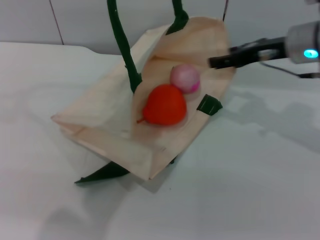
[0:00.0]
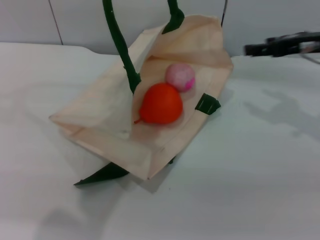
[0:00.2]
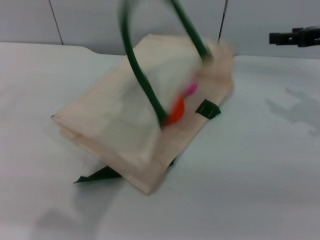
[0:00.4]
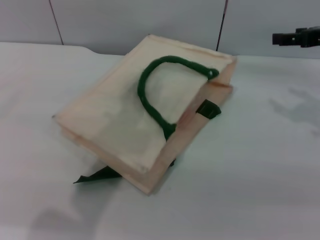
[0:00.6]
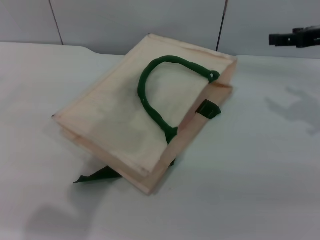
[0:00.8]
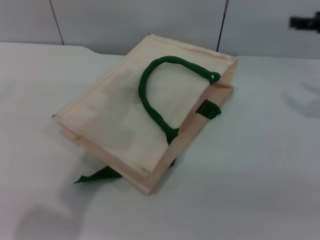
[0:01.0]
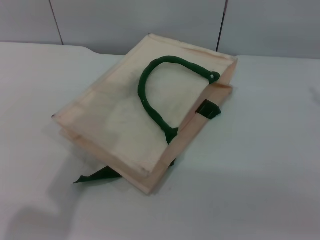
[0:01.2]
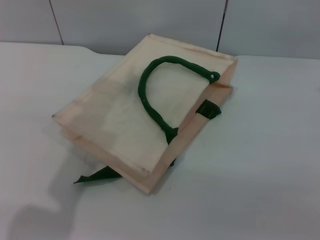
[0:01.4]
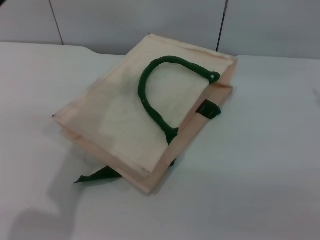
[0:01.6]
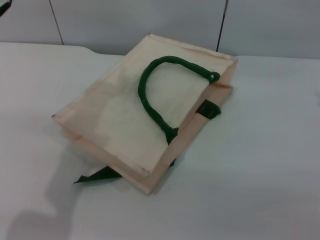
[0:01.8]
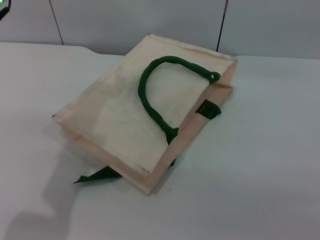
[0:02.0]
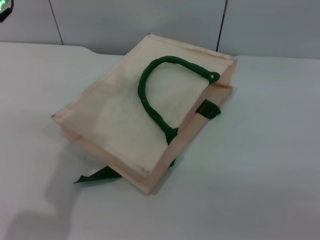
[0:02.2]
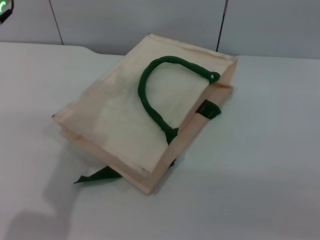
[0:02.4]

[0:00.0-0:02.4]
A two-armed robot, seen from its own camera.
Task of the whole recording: pick up the orange and peach from the table and place it in the white handbag.
0:00.0 to 0:01.2: The right gripper travels to the right by roughly 15 cm, while the left gripper goes roughly 5 cm to the left, and opens its fingers.

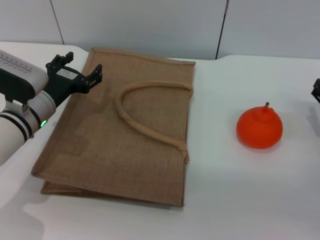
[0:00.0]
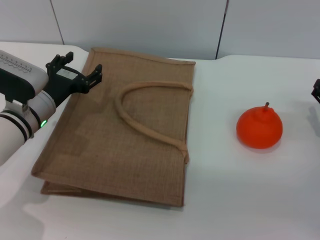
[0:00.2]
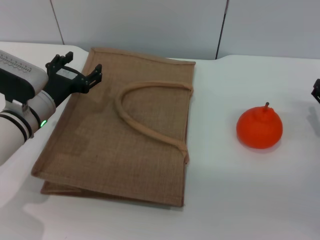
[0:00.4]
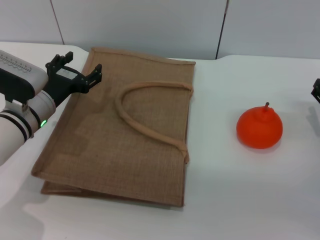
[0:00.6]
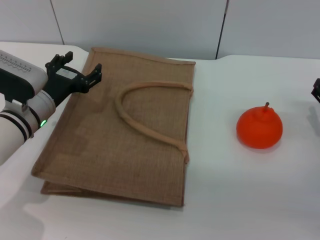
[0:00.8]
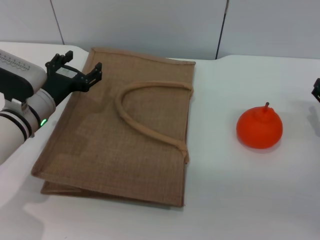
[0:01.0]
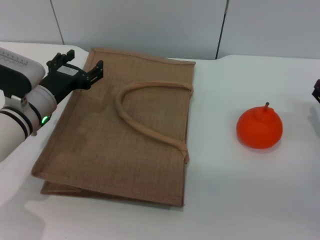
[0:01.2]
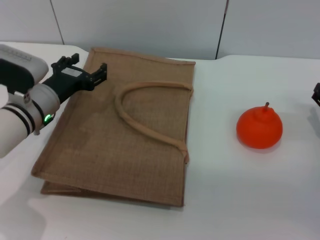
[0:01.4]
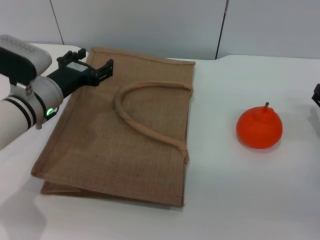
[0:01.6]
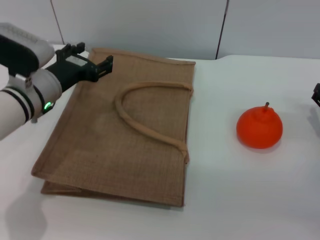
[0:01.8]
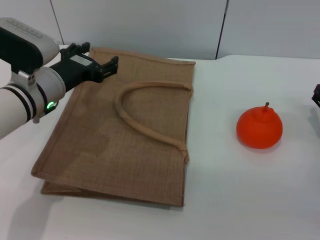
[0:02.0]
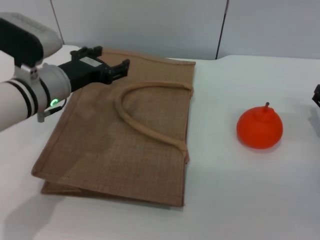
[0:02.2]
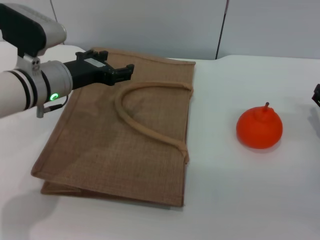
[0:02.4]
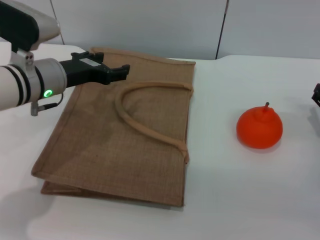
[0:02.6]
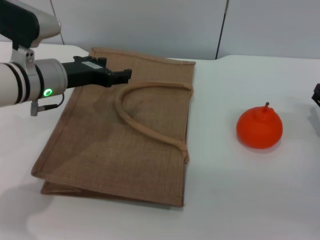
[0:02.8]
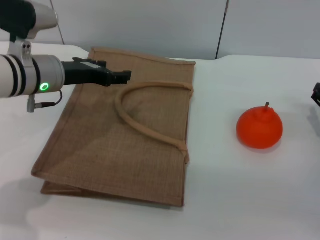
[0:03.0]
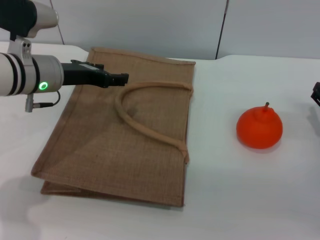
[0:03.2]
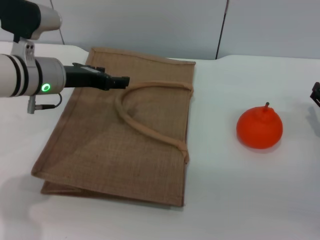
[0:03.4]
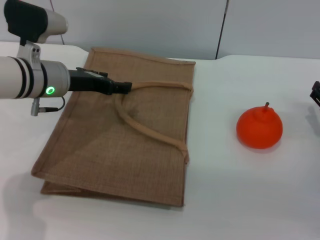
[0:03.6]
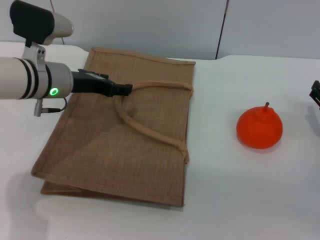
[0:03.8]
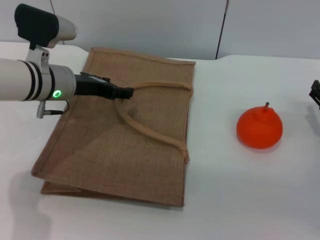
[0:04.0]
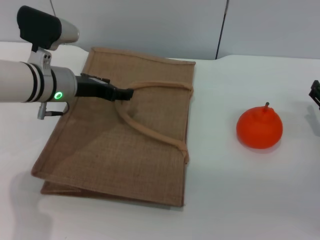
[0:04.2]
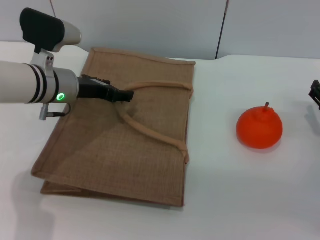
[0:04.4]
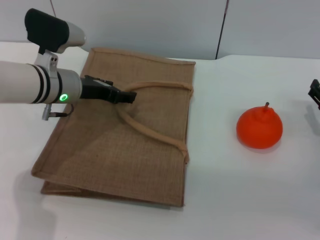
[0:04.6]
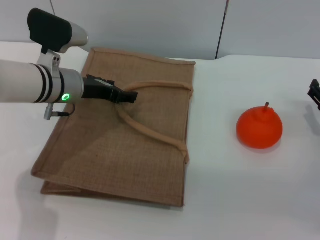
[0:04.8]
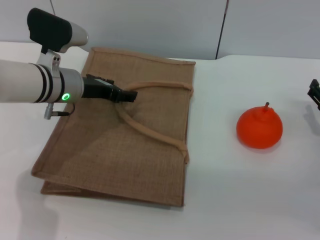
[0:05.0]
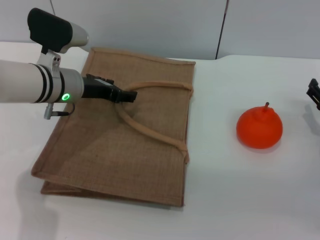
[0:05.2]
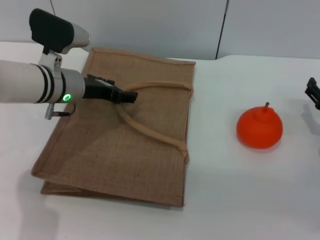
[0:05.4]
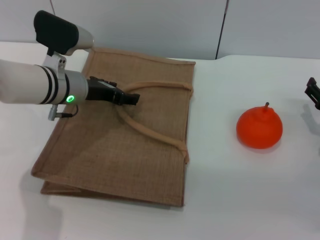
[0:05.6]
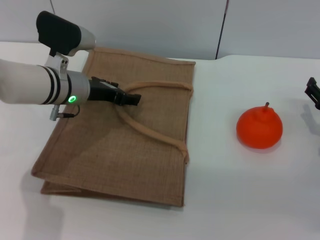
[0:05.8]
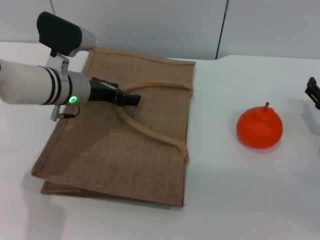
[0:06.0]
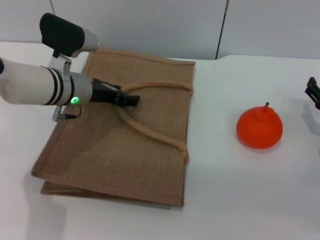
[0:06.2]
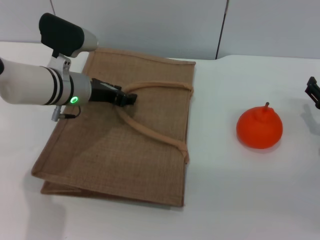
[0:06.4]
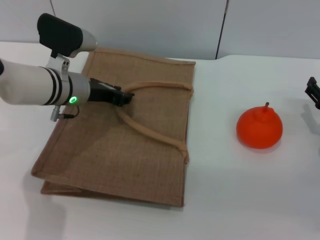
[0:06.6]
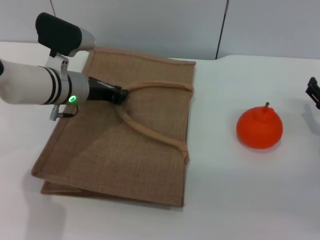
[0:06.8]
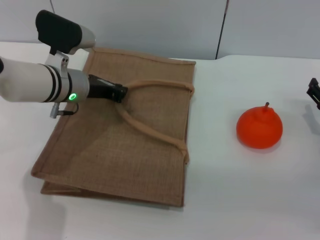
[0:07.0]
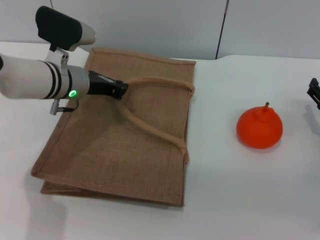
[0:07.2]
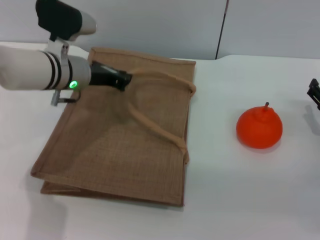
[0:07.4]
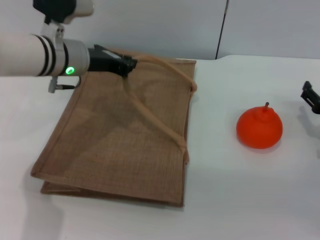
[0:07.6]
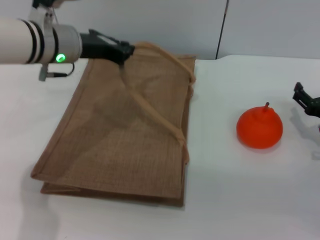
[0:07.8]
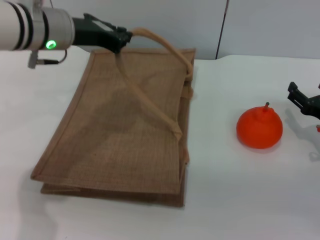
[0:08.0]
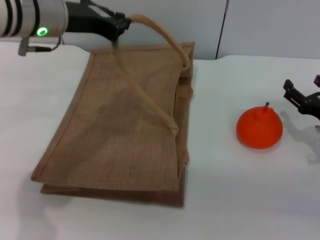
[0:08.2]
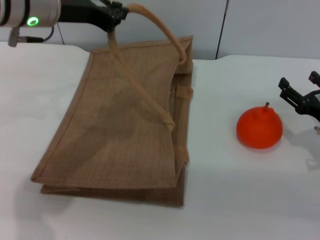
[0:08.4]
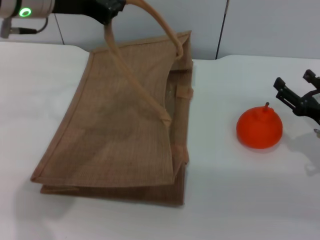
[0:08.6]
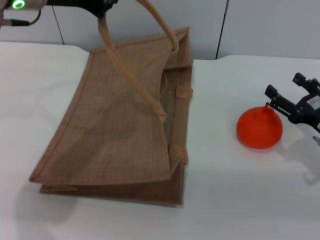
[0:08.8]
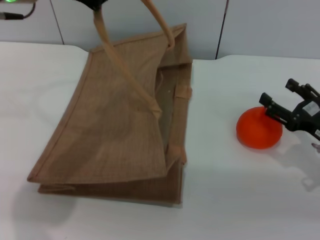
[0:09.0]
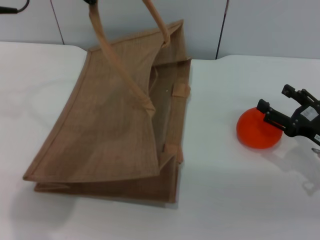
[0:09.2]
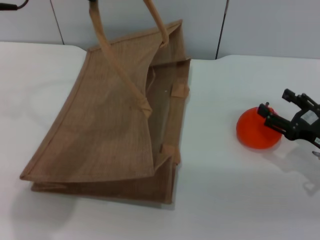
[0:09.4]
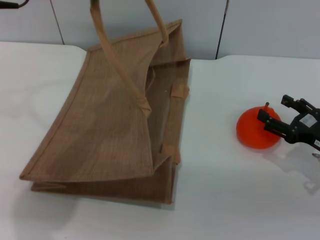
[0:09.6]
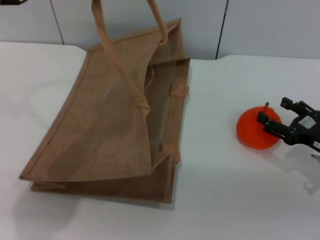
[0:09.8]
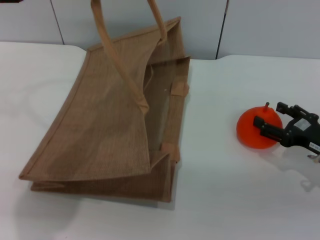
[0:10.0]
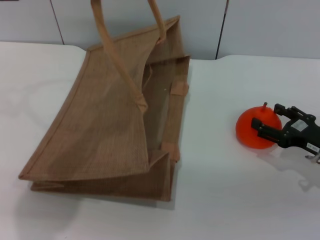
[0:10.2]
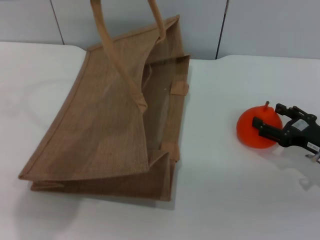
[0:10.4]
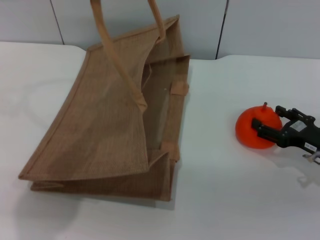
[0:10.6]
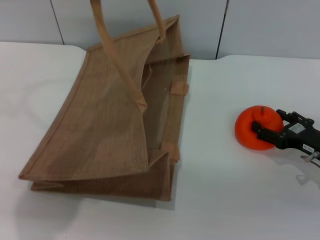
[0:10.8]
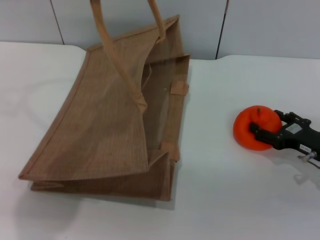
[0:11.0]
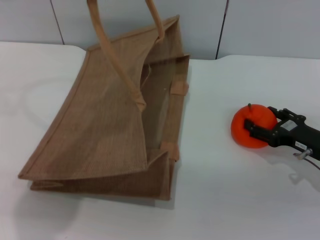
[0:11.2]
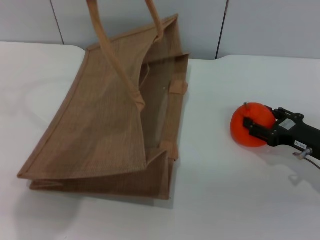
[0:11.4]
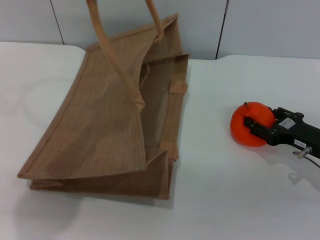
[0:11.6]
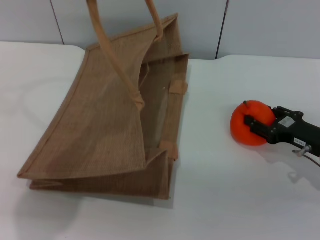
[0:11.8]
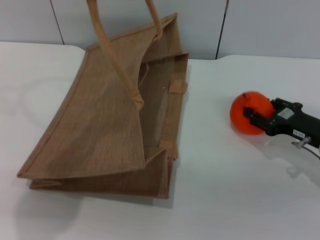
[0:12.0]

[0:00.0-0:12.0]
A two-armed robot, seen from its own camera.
Task of the whole recording: pick up the orange from the table and place it in the brown handbag.
Step, 0:00.0 to 0:08.4: Lift the woven bag with the left gripper to open it.
0:00.0 to 0:01.6: There are only small adjustments of the grippers.
0:01.6 to 0:03.0: The left gripper is displaced upward by about 5 cm.
0:03.0 to 0:06.0: The grippers move only a little.
0:06.0 to 0:07.6: The left gripper closes its fingers.
0:07.6 to 0:09.0: The left gripper heads upward, covering some 15 cm.
0:09.0 to 0:10.4: There are only small adjustments of the grippers.
0:10.4 to 0:12.0: The right gripper closes.

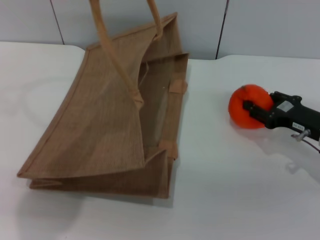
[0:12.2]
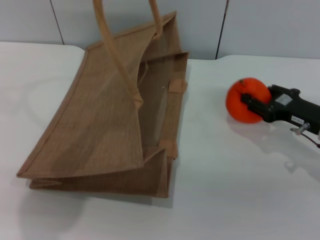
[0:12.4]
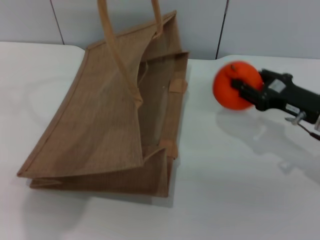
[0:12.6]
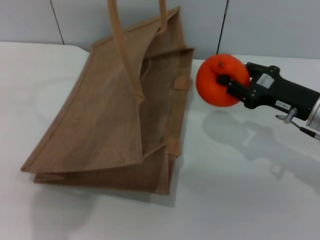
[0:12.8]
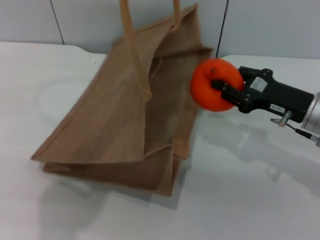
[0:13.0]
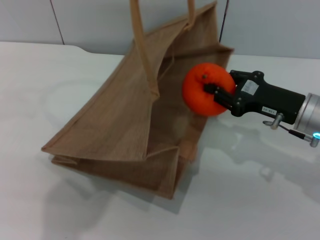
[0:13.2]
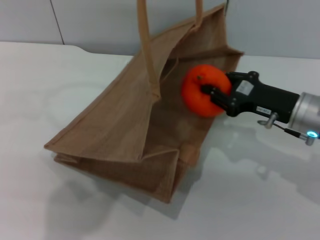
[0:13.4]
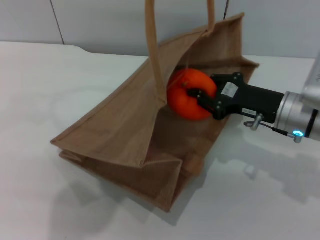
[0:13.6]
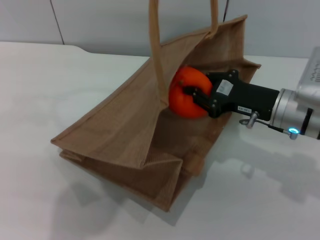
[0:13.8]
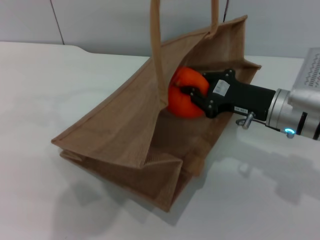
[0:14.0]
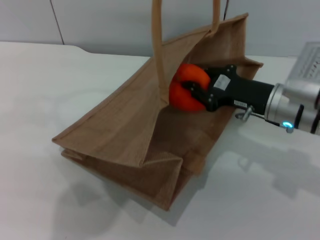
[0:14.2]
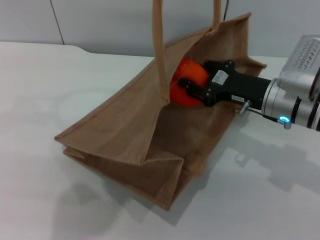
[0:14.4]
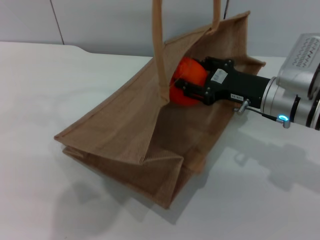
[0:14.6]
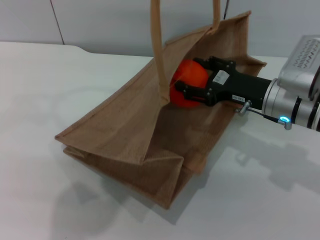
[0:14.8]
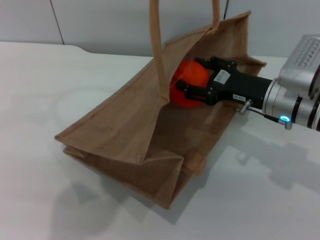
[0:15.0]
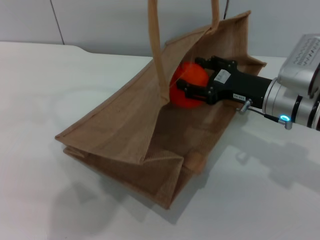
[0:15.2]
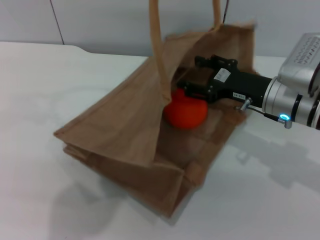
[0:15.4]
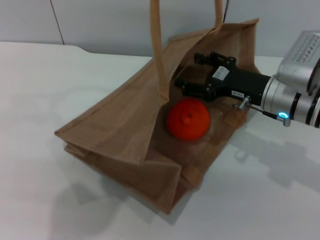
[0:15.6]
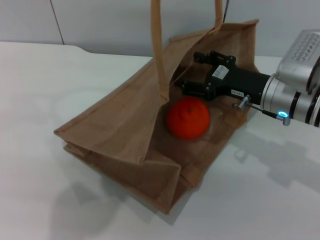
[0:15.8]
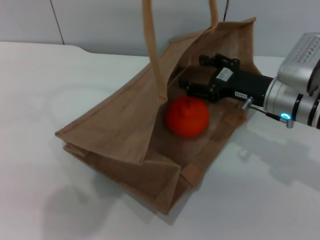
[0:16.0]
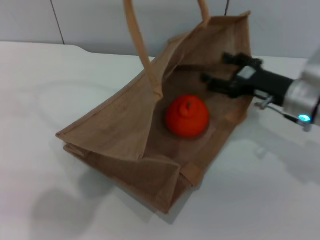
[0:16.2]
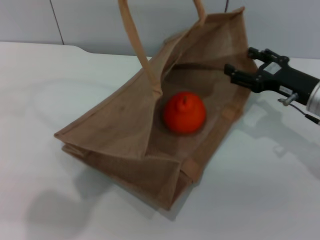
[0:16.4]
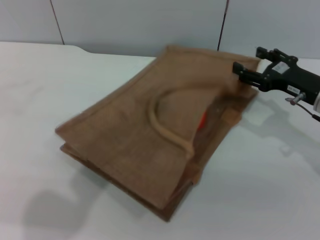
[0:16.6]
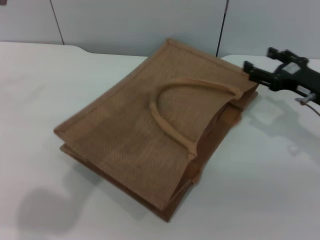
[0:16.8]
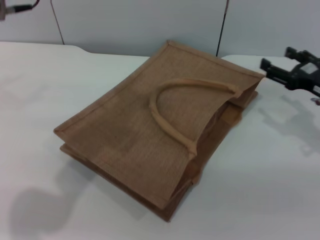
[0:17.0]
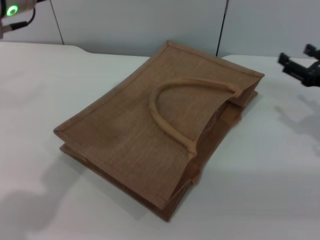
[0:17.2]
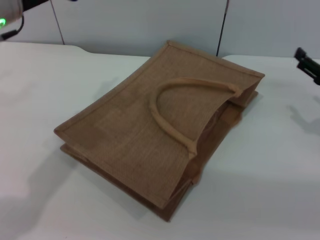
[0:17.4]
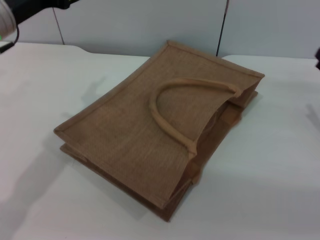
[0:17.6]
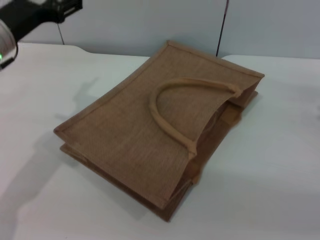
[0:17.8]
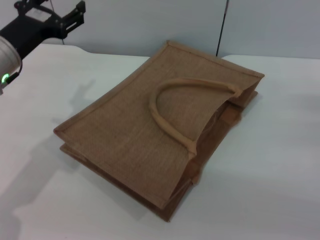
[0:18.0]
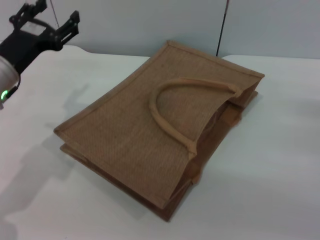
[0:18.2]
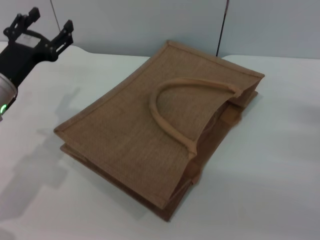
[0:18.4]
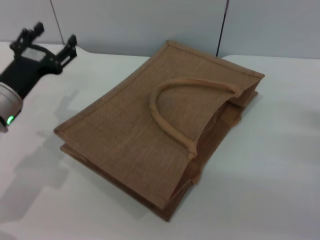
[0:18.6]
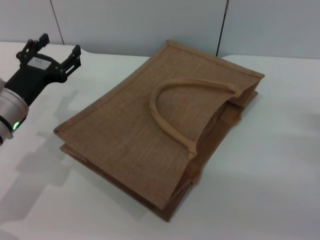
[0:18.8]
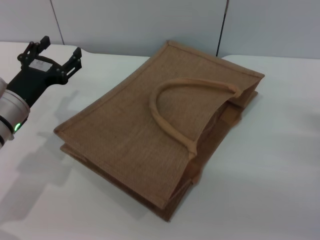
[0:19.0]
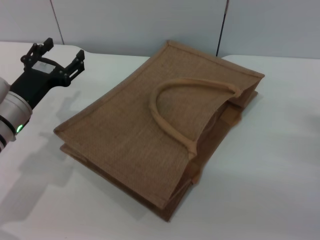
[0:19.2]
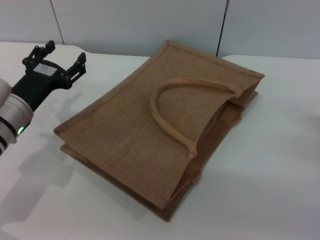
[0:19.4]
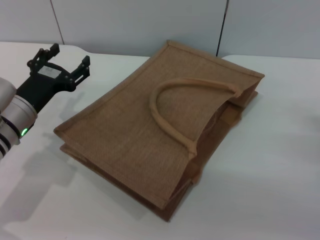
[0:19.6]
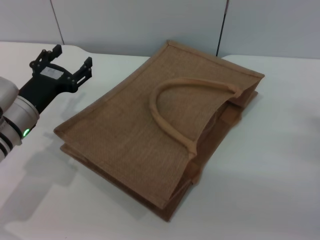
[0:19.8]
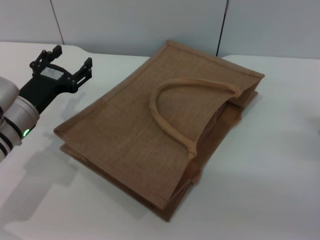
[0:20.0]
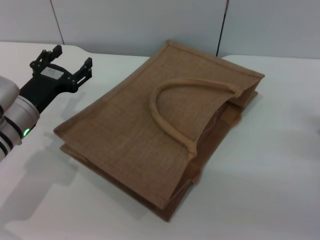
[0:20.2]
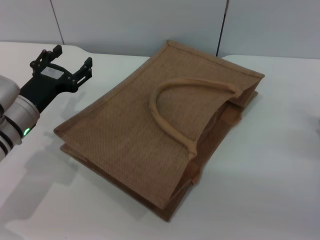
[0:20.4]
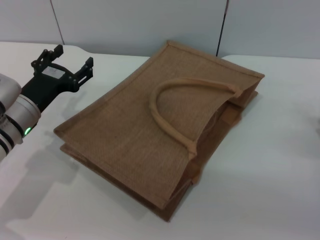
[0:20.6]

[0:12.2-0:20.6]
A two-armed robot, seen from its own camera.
Task of the whole recording: pick up the orange from the table and place it in the brown handbag.
Step, 0:12.4 to 0:15.6: Place the orange into the woven bag with the right gripper.
Step, 0:15.8 to 0:16.8: Lower the woven bag with the left gripper to close it.
0:12.2 to 0:13.6: The right gripper is displaced to the left by about 10 cm, and closes up. Meanwhile the left gripper travels to the right by roughly 5 cm.
0:13.6 to 0:15.0: The right gripper opens its fingers.
0:15.0 to 0:16.4: The right gripper travels to the right by about 5 cm.
0:16.4 to 0:17.8: The left gripper goes roughly 15 cm downward and to the left, and opens its fingers; the right gripper moves to the right and backward, approximately 10 cm.
0:17.8 to 0:19.2: The left gripper goes some 10 cm downward.
0:19.2 to 0:20.6: The grippers make only small movements.
